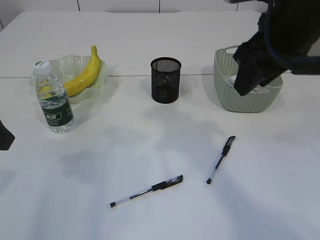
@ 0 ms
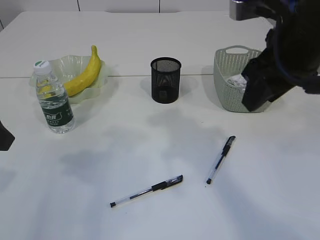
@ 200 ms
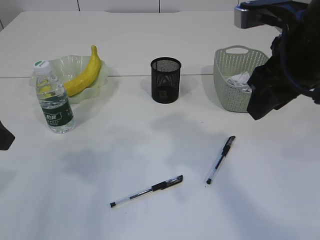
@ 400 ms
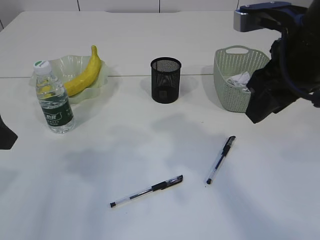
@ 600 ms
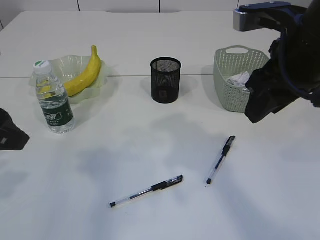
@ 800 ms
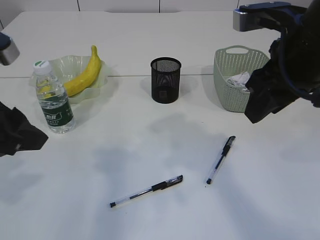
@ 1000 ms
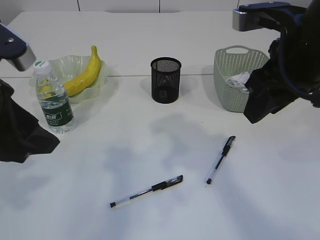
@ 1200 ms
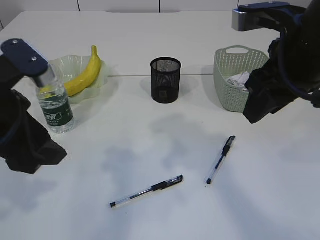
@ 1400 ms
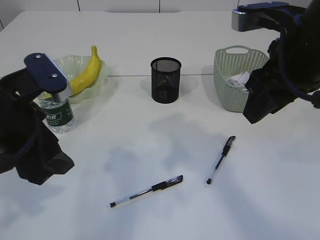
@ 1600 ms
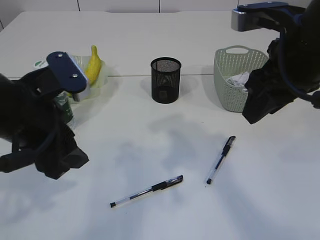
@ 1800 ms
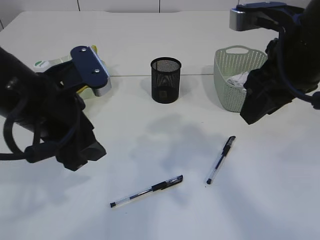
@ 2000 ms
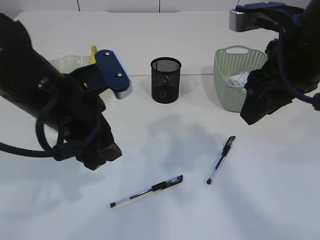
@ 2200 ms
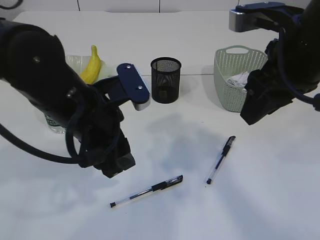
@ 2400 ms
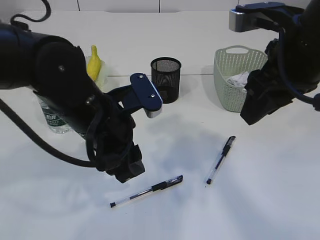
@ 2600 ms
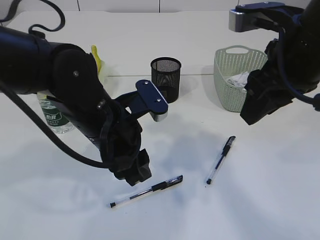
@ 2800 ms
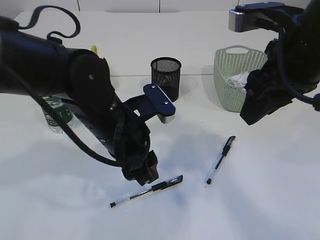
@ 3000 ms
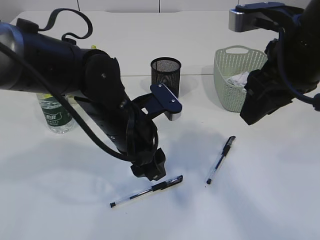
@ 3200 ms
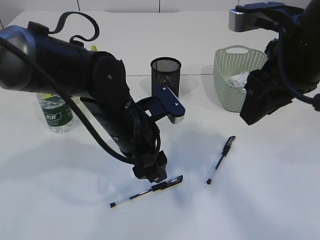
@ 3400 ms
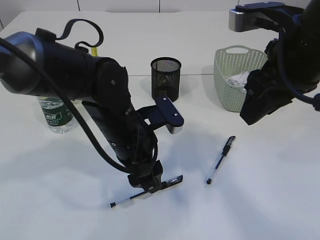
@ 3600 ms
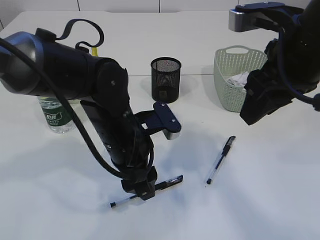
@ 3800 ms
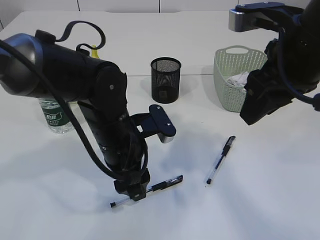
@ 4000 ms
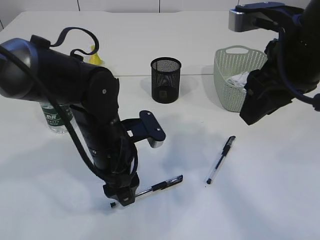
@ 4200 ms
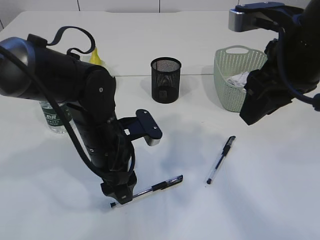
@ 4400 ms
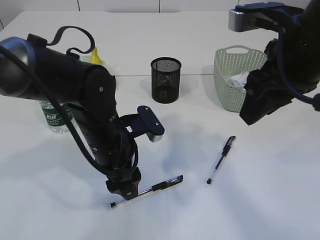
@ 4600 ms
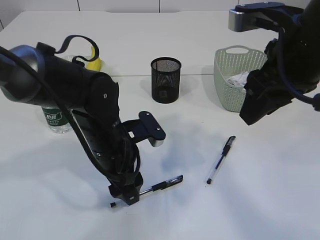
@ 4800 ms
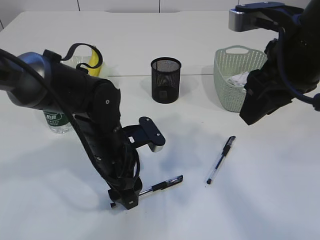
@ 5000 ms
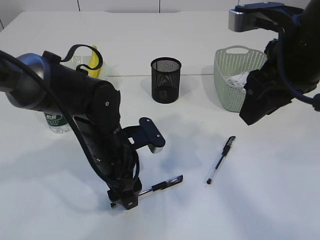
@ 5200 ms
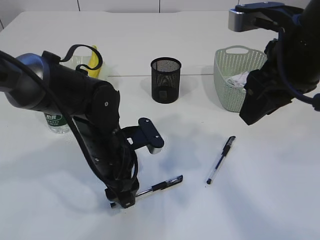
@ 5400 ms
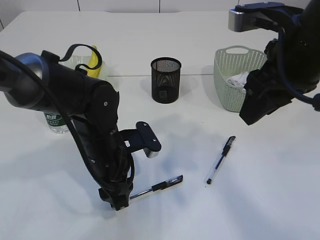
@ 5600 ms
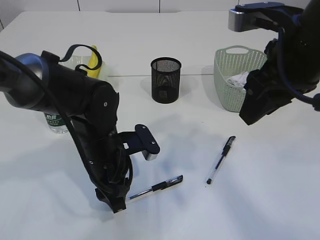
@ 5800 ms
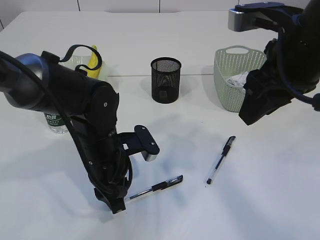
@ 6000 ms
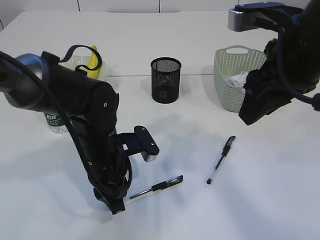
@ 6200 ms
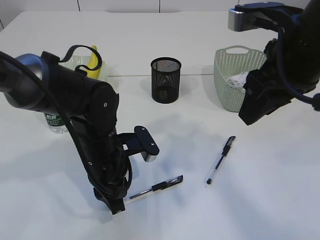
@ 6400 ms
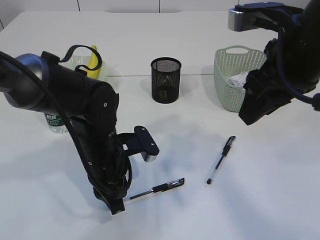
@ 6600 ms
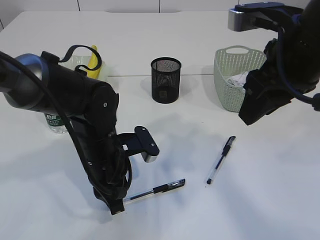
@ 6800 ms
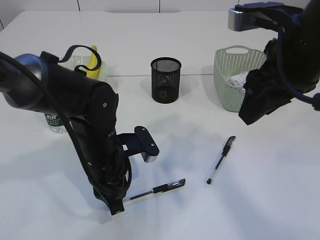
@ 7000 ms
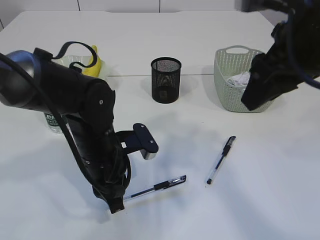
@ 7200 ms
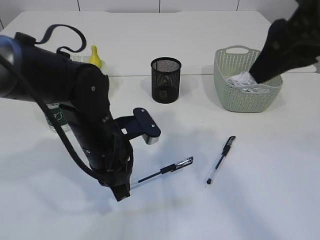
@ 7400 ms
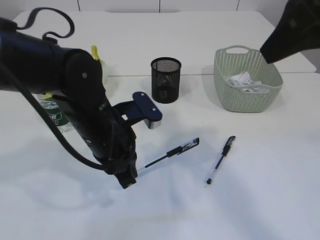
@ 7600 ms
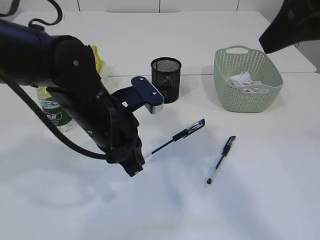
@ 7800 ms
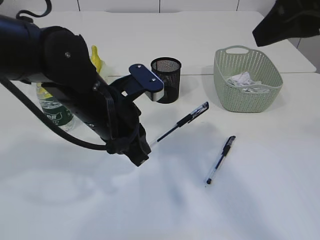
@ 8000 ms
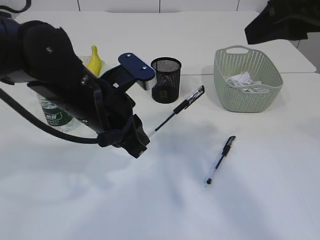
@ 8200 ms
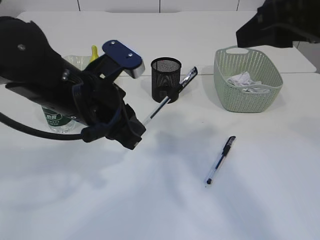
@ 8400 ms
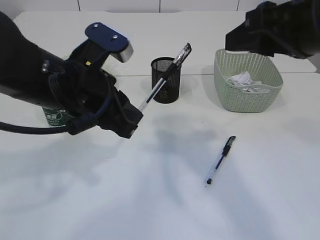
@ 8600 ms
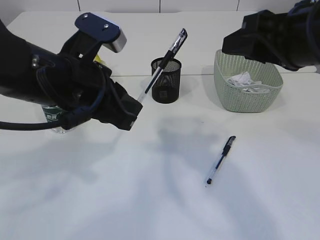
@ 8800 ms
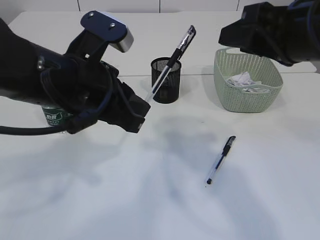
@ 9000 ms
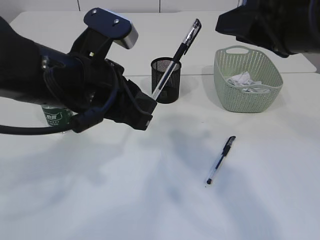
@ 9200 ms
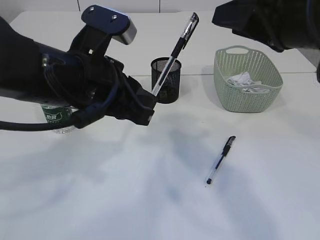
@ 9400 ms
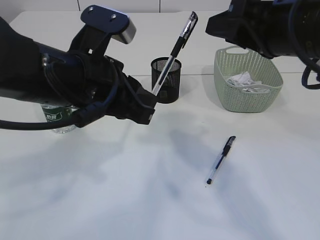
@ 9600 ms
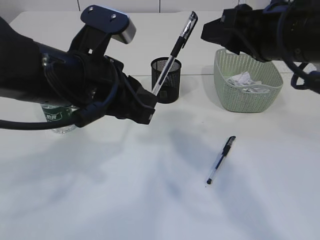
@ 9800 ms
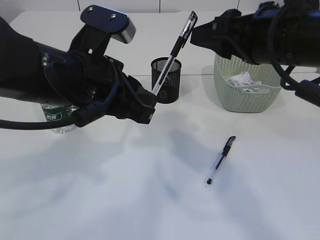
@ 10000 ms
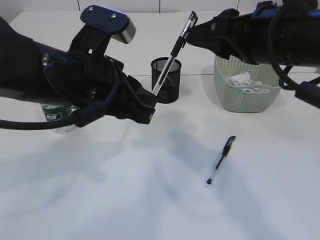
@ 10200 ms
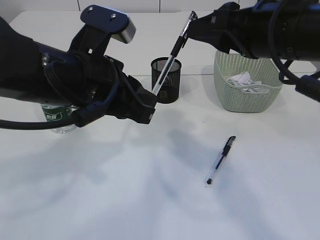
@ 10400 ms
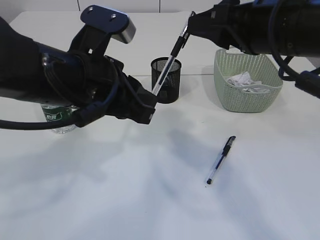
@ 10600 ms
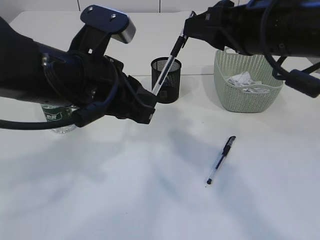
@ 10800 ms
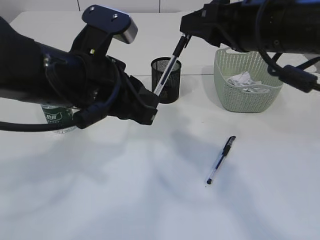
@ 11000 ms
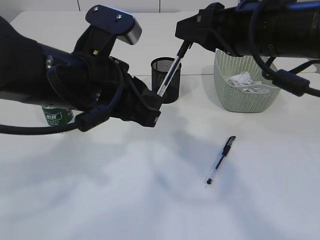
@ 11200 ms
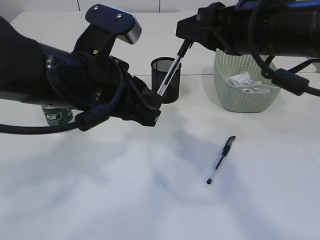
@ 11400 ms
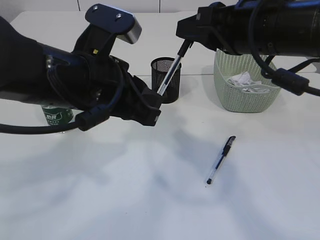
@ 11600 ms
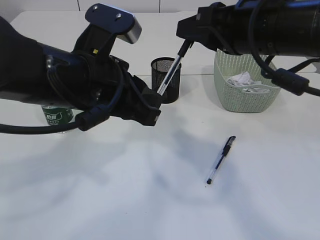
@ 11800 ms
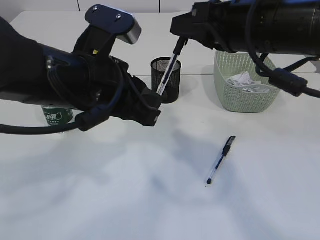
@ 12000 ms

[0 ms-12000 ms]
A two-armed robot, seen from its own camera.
Step, 0 ms to 7800 ms: Pick up the pen with left arm.
0 ms to 1600 ms: The left gripper travels to the right by approximately 5 cm.
1600 ms to 3000 ms: The left gripper moves to the right, downward and forward, approximately 15 cm.
3000 ms to 4400 ms: The grippers move only a little.
4400 ms to 6000 ms: The left gripper closes up.
6000 ms to 7600 ms: Both grippers move upward, some 5 cm.
7600 ms to 9000 ms: The left gripper moves upward, some 10 cm. Meanwhile the right gripper shifts approximately 5 cm downward.
9000 ms to 10400 ms: The grippers stay close to where they were, moving slightly.
10400 ms to 12000 ms: The right gripper closes up.

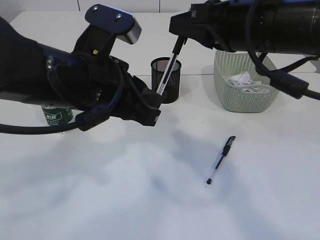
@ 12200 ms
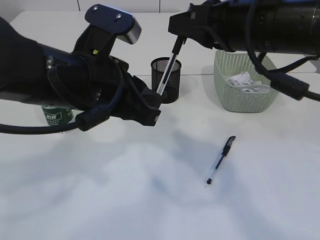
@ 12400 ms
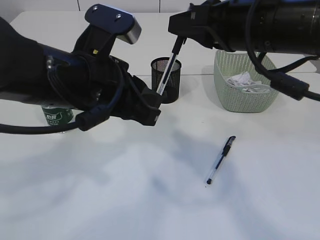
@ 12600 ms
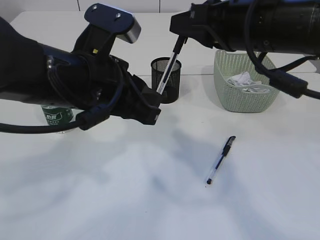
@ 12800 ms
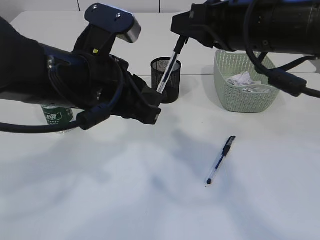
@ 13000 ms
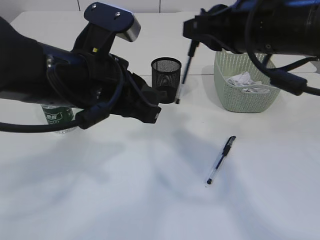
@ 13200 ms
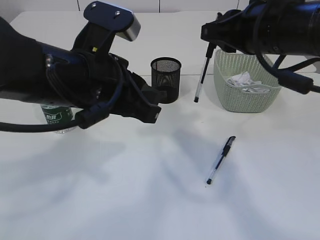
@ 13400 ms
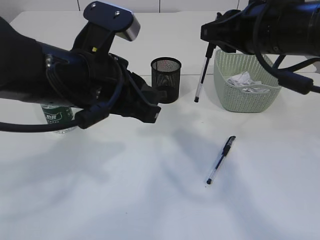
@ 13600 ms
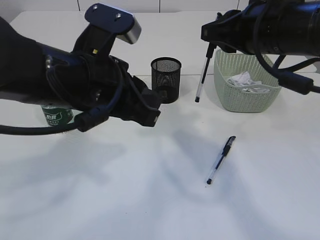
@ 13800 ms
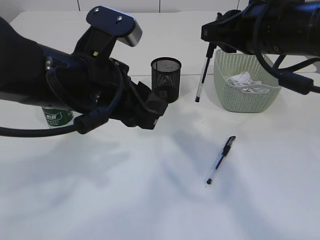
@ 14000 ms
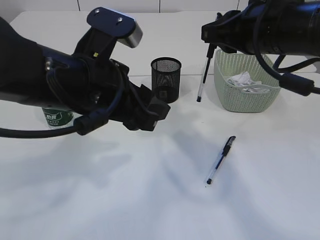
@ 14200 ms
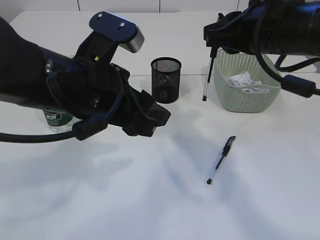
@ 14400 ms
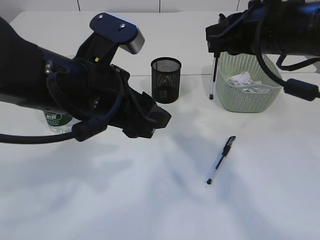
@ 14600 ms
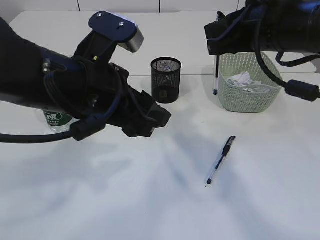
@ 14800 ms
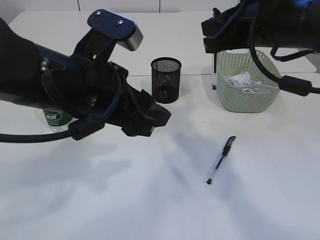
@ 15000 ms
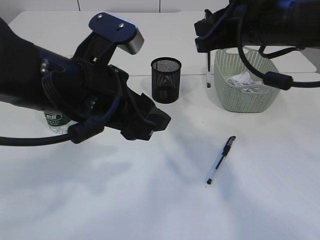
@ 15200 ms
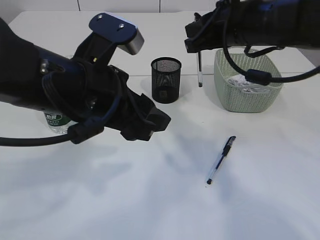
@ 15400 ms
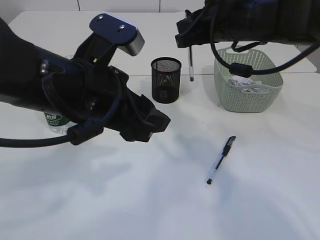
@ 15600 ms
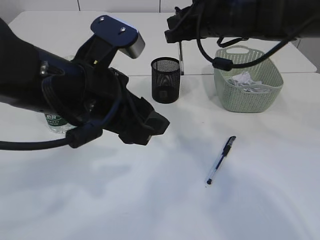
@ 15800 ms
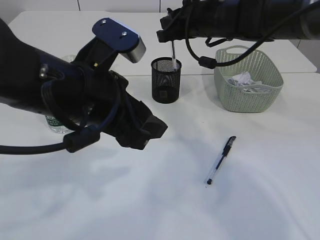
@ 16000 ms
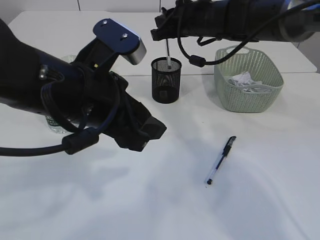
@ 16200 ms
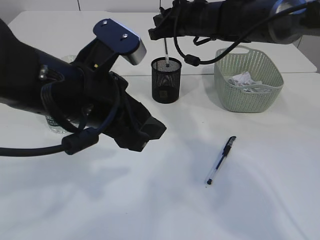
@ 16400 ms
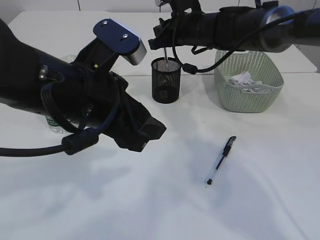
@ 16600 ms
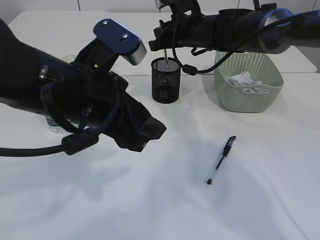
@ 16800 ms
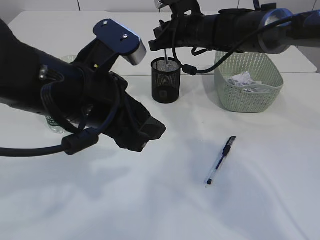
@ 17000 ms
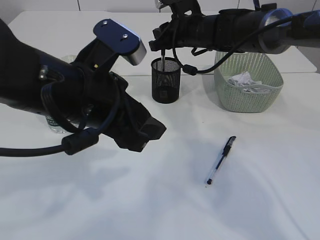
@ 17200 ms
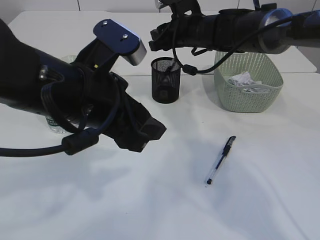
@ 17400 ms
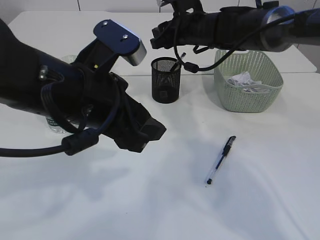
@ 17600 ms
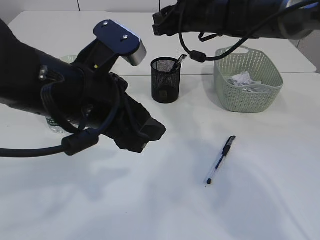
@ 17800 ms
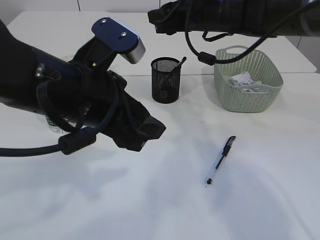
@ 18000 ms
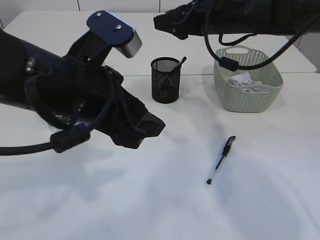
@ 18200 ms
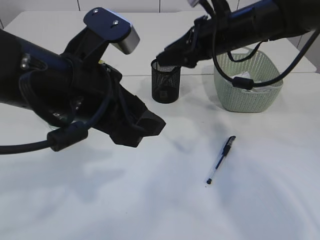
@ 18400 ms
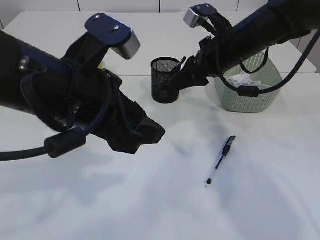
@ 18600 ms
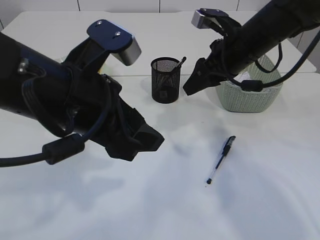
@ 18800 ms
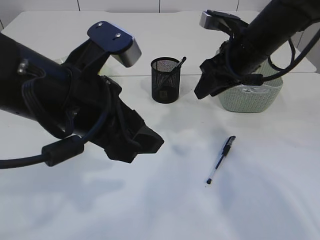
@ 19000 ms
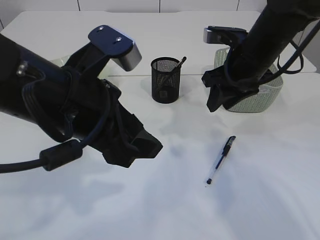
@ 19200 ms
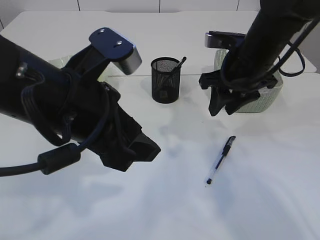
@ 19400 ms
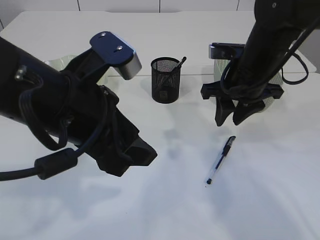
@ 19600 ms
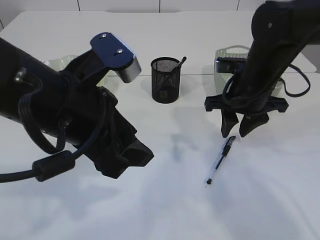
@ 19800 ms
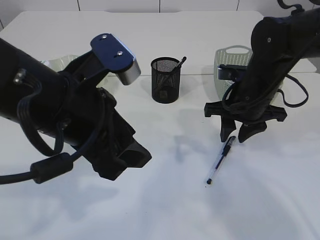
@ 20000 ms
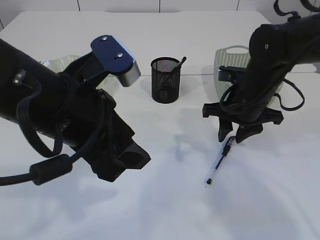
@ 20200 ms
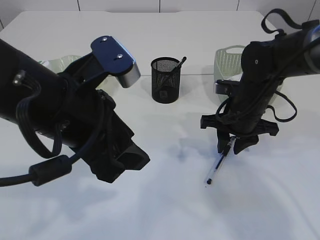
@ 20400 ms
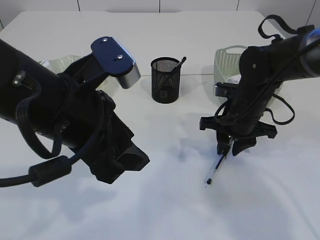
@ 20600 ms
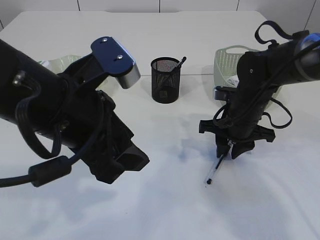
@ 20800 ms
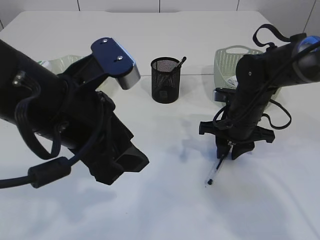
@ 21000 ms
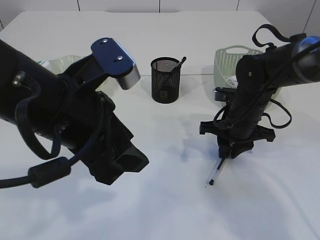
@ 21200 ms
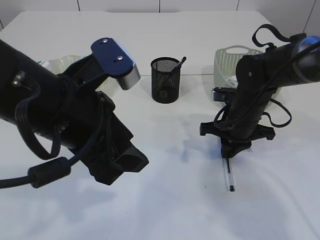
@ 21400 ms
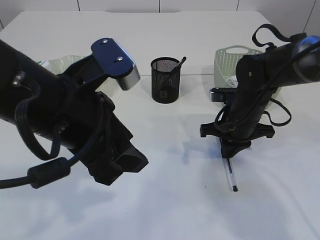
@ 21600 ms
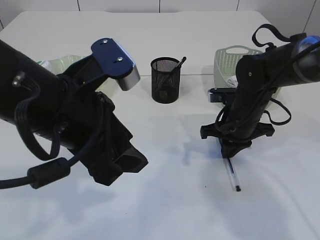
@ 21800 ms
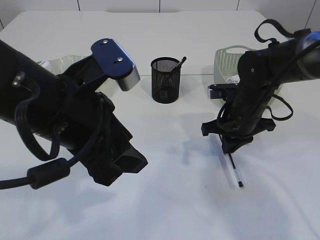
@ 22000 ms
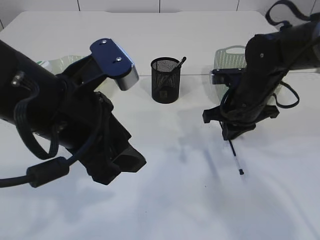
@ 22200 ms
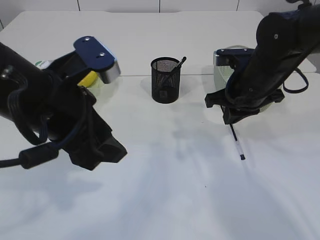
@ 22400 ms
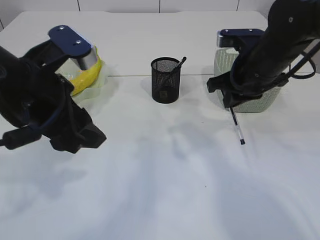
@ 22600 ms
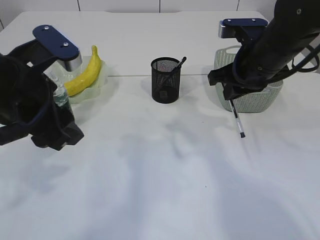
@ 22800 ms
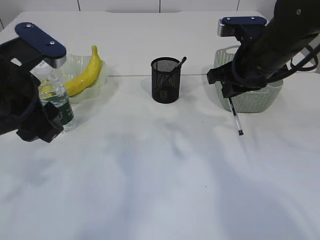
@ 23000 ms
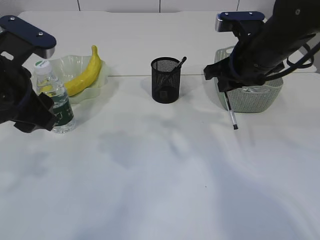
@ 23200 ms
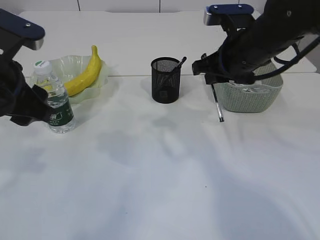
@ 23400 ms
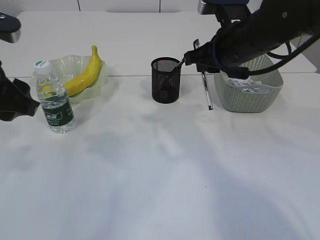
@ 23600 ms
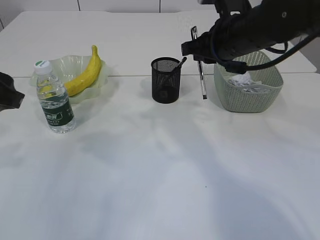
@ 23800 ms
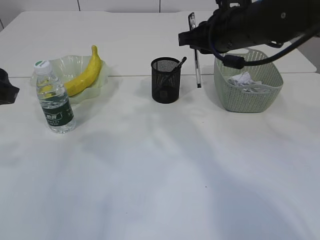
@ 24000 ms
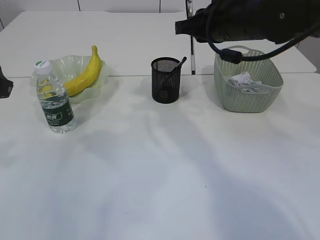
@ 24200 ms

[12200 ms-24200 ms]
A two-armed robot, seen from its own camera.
Step, 13400 ms to 17600 ms: Place the pen into the pen holder.
Step, 17800 ms to 22400 ms: Pick up the pen with right arm.
12200 ms to 13800 ms: There are only small adjustments of the grippers.
13800 ms to 15200 ms: The left gripper opens up.
15200 ms to 16600 ms: The right gripper travels forward and downward by some 15 cm.
16600 ms to 18200 ms: The right gripper goes approximately 5 cm backward, and opens.
18200 ms to 19800 ms: The right gripper moves downward and backward, approximately 10 cm.
19800 ms to 21200 ms: The right gripper is displaced downward by some 10 cm.
21200 ms to 22600 ms: The left gripper shifts by roughly 5 cm; the right gripper heads upward, covering approximately 10 cm.
22600 ms to 24200 ms: The left gripper travels to the left by some 10 cm. The right gripper is displaced upward by about 5 cm.
